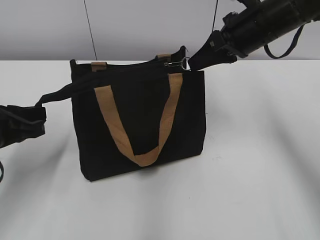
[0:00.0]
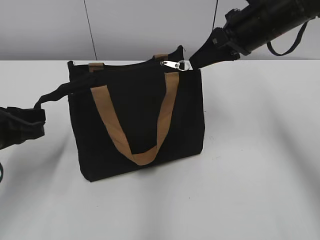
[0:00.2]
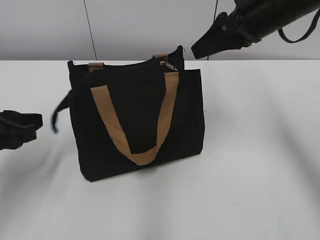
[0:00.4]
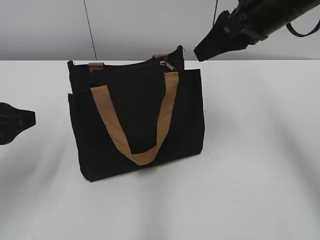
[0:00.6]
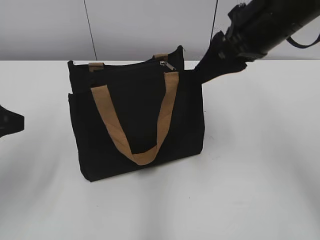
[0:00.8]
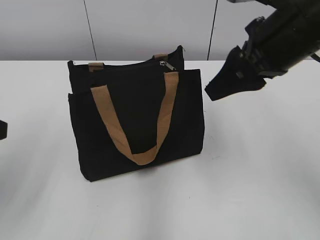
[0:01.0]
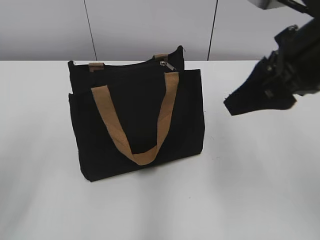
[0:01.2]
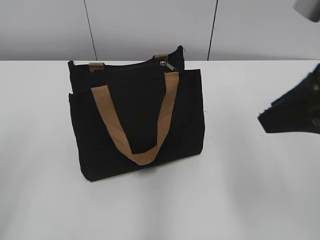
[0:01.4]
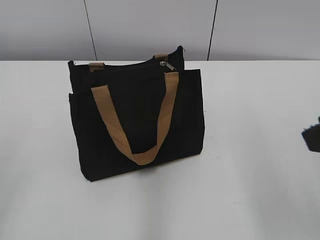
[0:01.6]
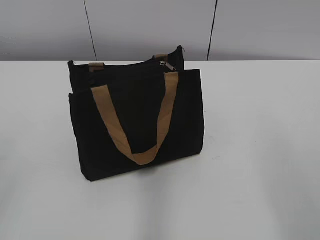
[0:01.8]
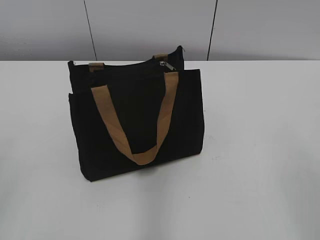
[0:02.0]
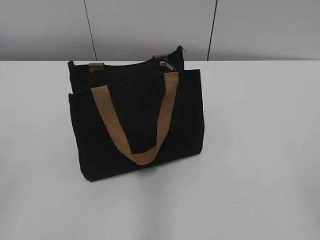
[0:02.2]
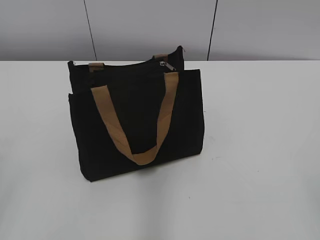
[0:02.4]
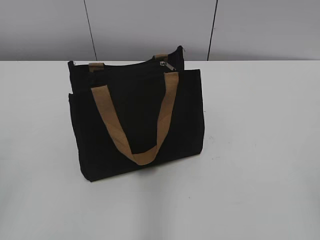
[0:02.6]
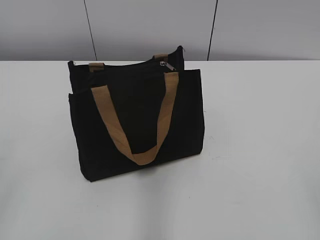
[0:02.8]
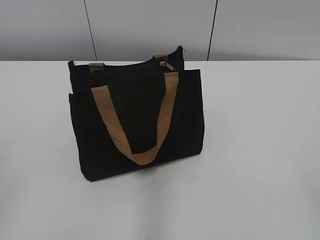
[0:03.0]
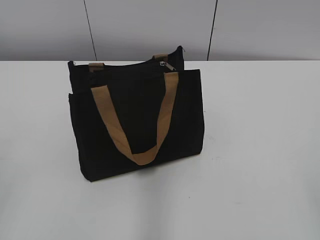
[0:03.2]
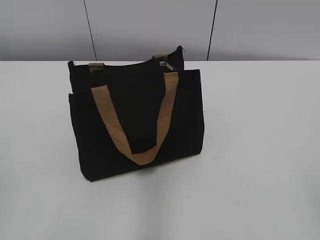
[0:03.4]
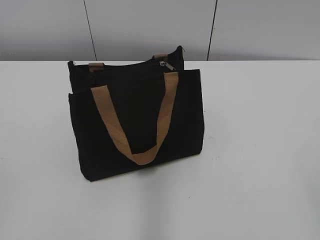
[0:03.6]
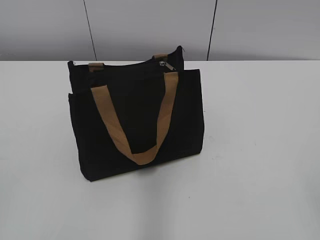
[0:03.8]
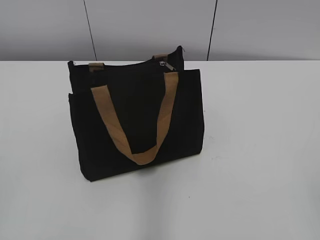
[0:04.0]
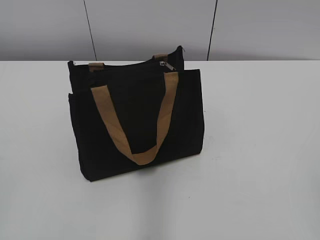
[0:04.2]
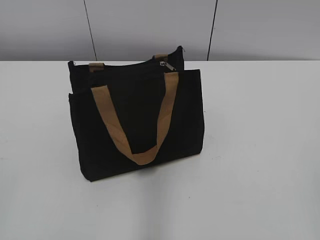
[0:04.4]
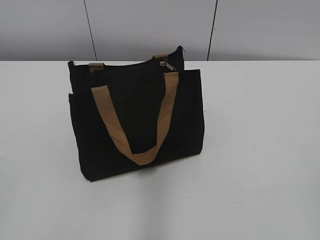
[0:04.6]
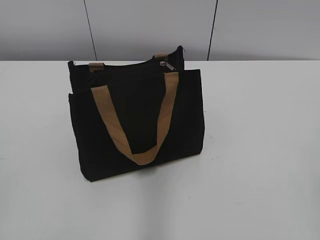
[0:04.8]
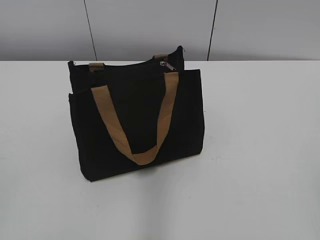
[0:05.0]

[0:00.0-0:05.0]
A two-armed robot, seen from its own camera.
Step, 0:00.2 to 0:00.6: Grab the zipper with your left hand.
0:00.0 to 0:01.6: The right gripper is displaced backward by roughly 25 cm, and opens its fingers, while the left gripper heads backward and upward, covering approximately 20 cm, and opens.
0:01.6 to 0:03.4: The right gripper travels backward and to the right by some 15 cm.

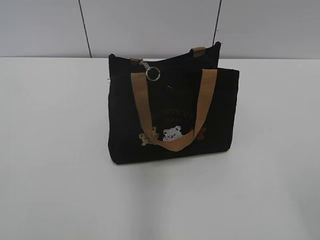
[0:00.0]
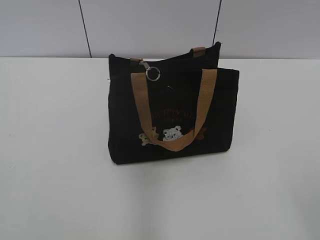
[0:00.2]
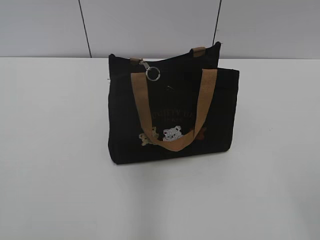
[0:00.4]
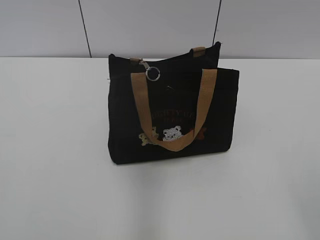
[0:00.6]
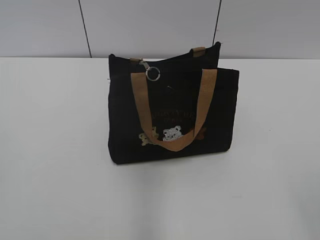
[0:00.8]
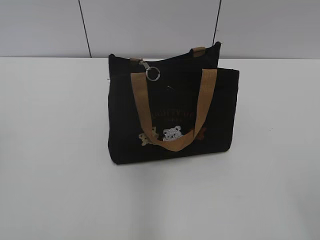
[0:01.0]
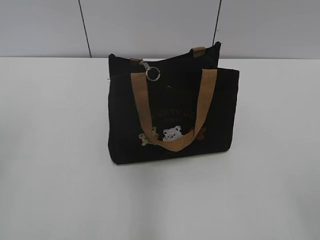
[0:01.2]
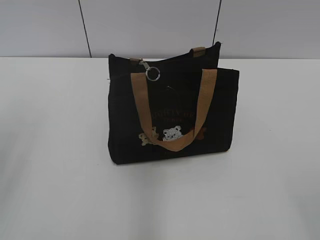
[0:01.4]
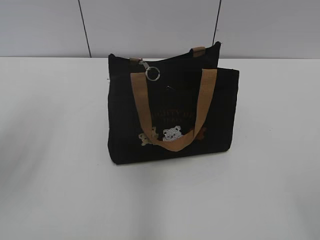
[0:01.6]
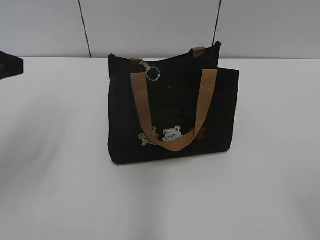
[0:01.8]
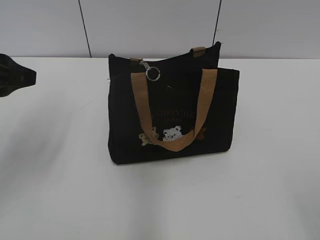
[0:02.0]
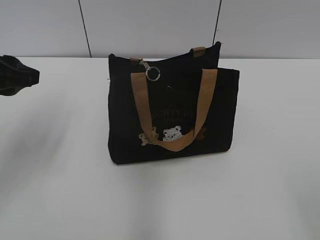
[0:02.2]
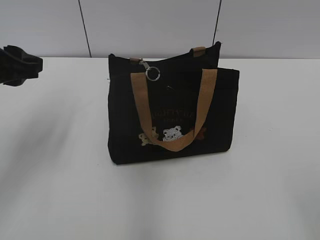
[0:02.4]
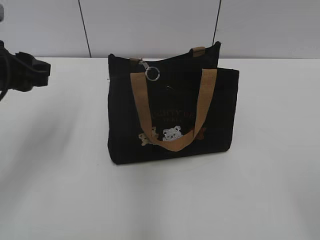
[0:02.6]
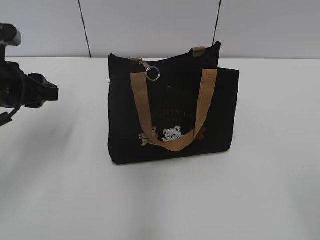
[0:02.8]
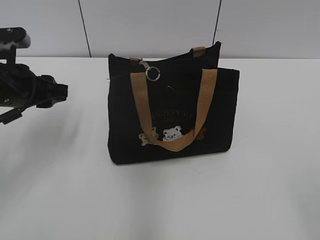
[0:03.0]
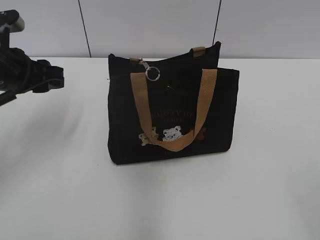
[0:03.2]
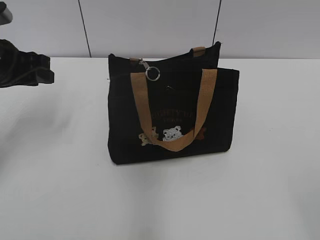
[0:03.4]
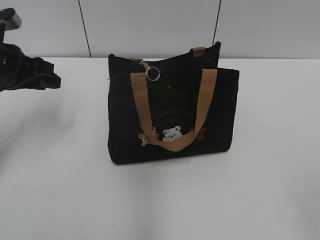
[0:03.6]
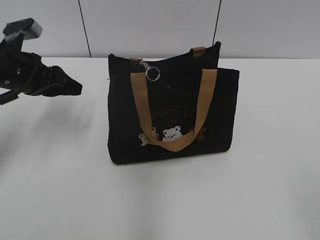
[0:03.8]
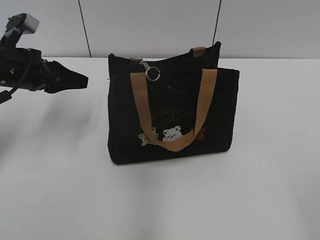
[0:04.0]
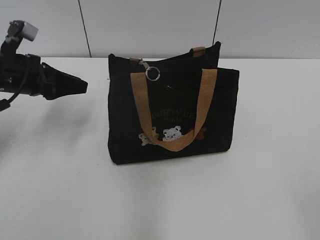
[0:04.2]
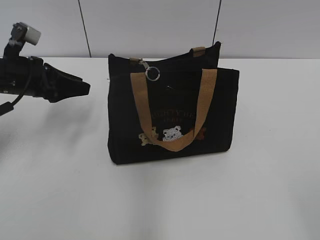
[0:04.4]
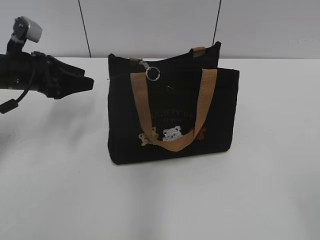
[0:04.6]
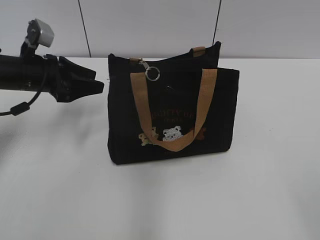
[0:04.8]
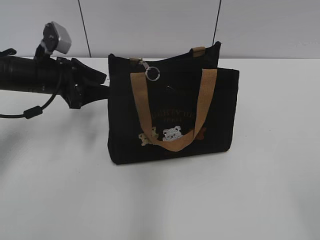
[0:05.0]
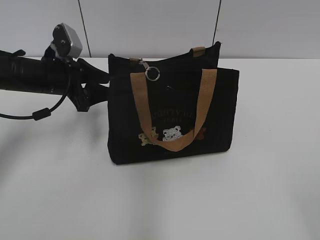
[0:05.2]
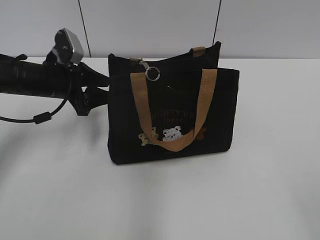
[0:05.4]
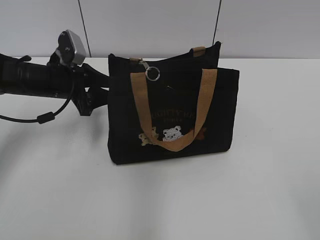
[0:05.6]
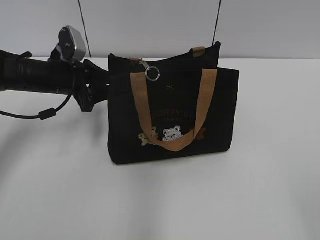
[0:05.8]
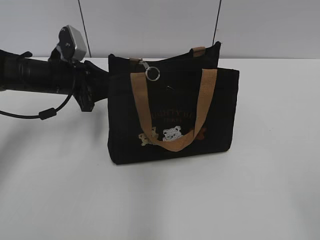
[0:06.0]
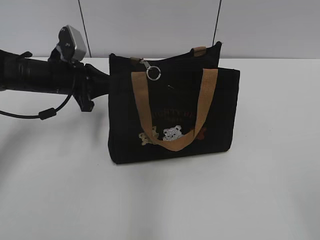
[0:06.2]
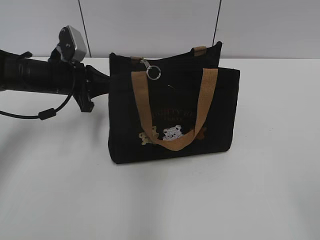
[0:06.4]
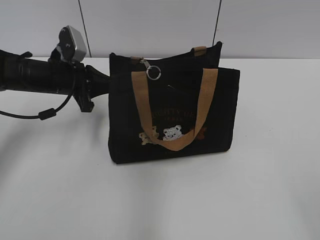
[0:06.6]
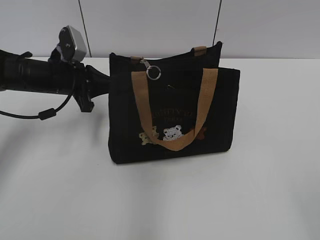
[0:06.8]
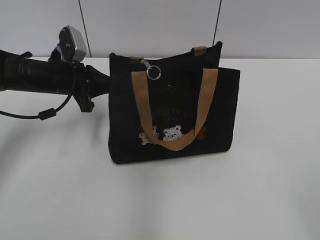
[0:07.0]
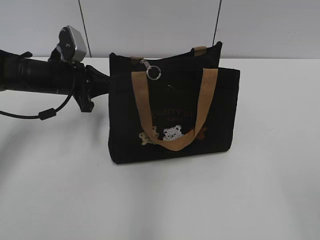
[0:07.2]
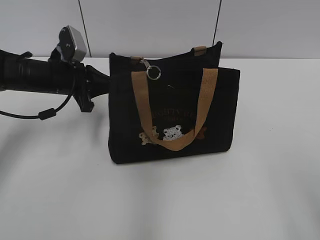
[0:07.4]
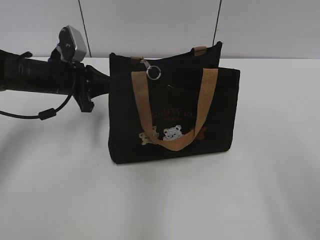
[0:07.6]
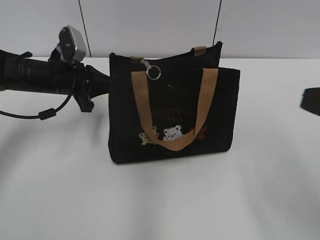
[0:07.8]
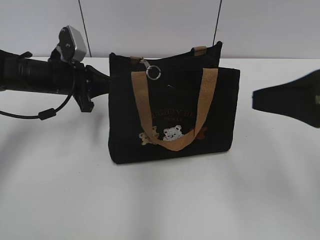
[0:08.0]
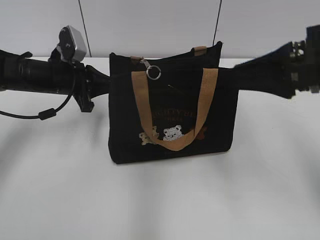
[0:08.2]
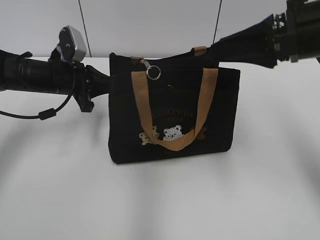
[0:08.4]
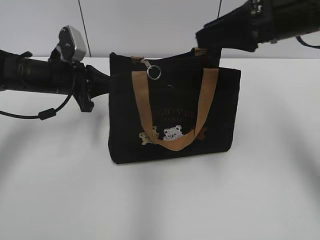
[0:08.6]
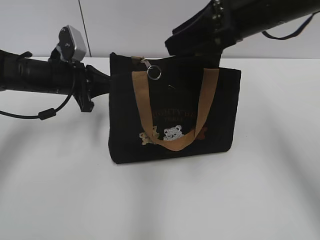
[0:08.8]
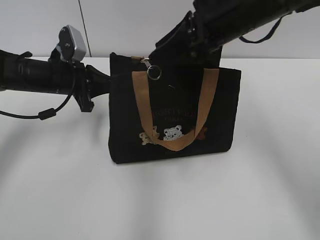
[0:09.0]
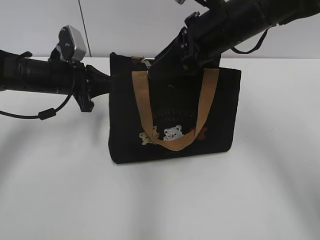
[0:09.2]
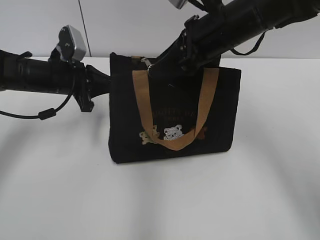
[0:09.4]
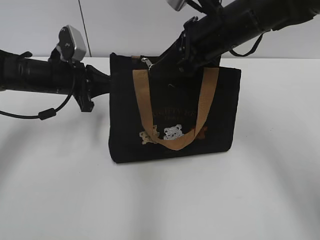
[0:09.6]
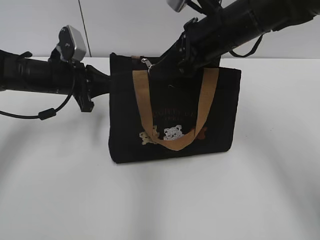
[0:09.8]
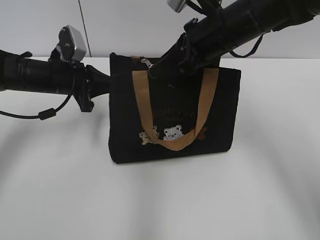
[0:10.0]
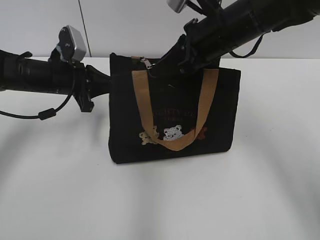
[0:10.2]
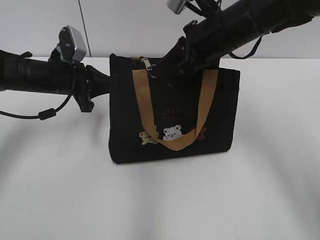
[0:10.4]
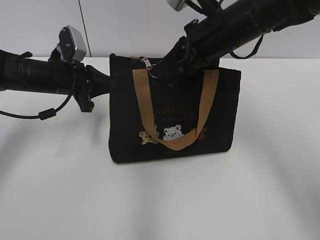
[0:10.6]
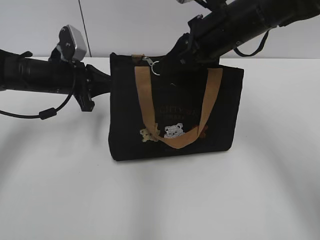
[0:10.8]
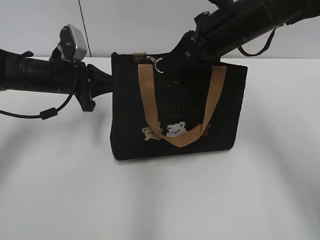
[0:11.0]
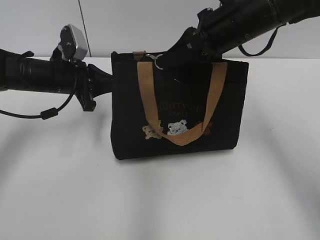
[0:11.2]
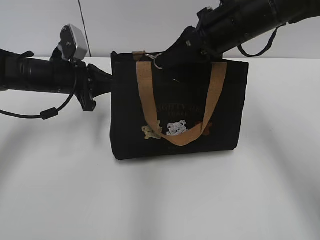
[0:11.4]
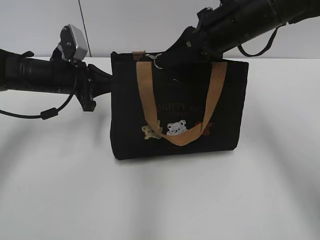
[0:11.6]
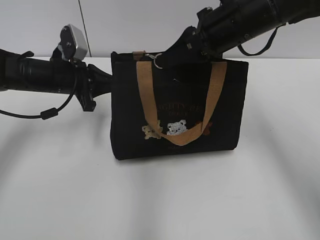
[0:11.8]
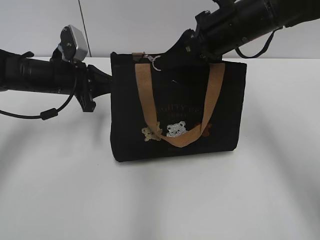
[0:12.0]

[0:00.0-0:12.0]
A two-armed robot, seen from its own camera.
0:01.6 to 0:03.0: The left gripper shifts about 15 cm downward and forward.
0:03.0 to 0:04.4: The left gripper heads forward, covering roughly 5 cm.
0:04.4 to 0:06.0: The left gripper moves to the right, roughly 5 cm.
0:06.0 to 0:07.6: The right gripper heads forward, covering roughly 5 cm. Meanwhile the left gripper closes up.
0:07.6 to 0:09.0: The right gripper shifts approximately 30 cm forward and to the left.
0:09.0 to 0:10.4: The right gripper shifts about 5 cm downward, and closes its fingers.
0:10.4 to 0:12.0: The grippers move only a little.

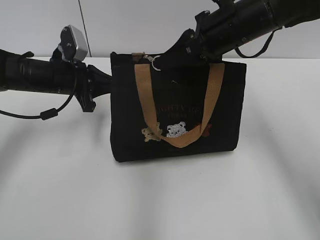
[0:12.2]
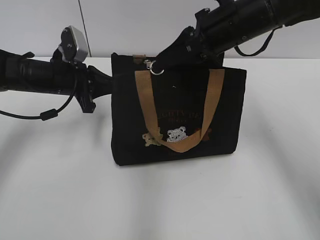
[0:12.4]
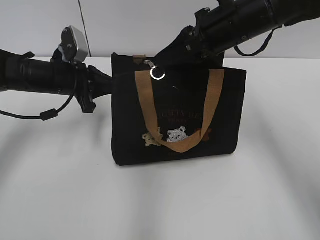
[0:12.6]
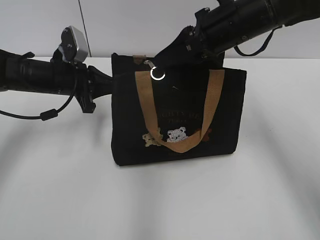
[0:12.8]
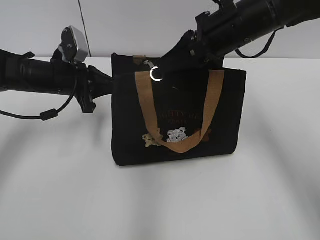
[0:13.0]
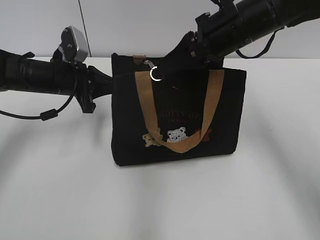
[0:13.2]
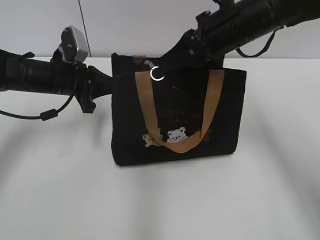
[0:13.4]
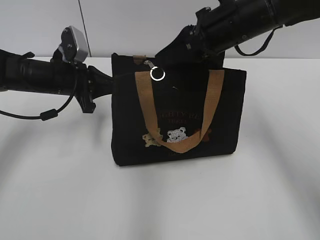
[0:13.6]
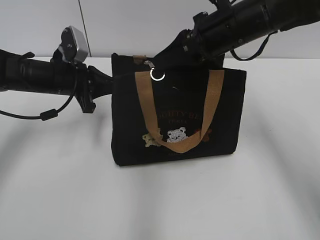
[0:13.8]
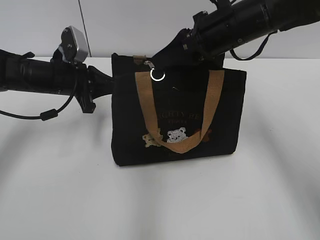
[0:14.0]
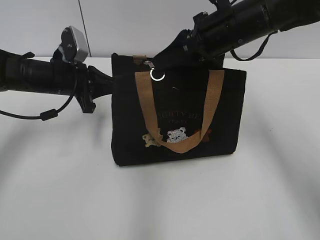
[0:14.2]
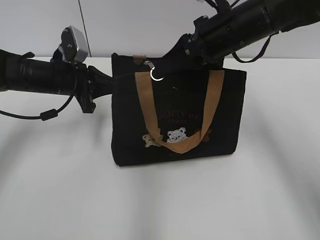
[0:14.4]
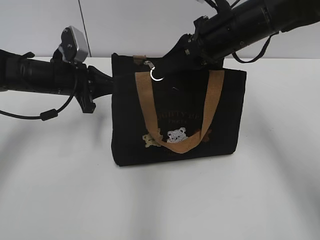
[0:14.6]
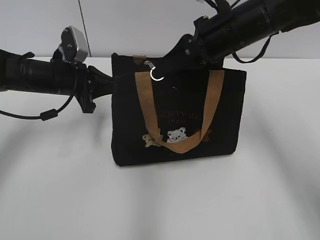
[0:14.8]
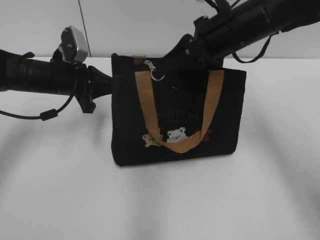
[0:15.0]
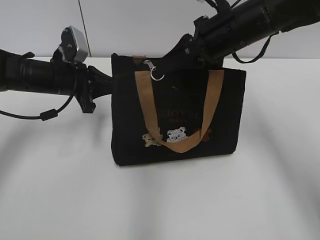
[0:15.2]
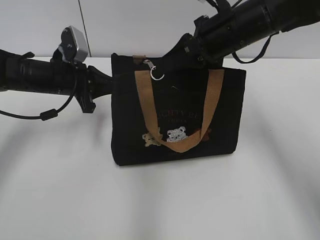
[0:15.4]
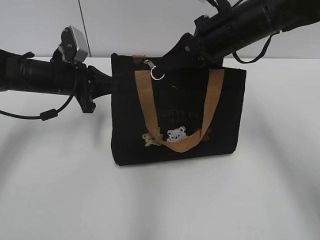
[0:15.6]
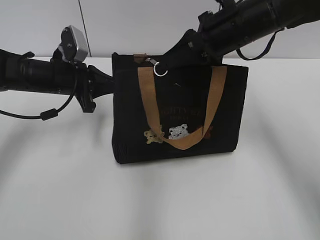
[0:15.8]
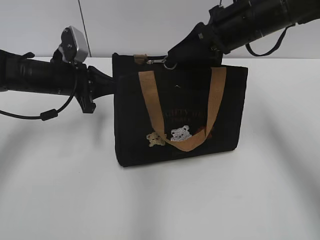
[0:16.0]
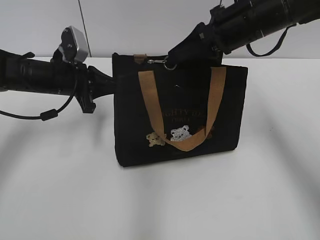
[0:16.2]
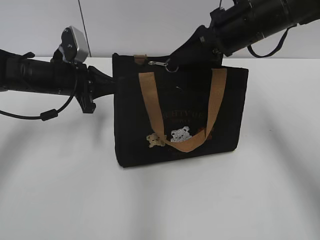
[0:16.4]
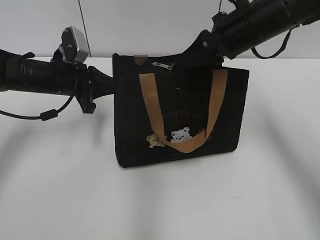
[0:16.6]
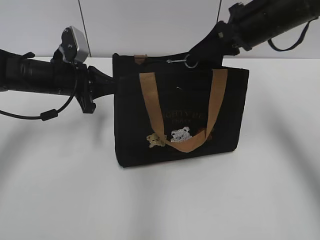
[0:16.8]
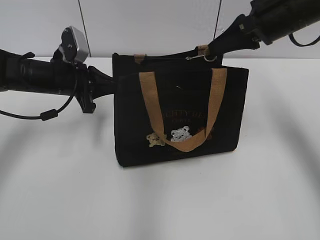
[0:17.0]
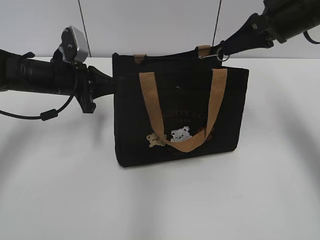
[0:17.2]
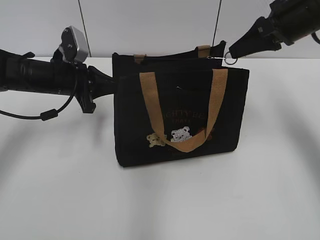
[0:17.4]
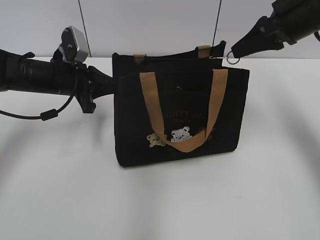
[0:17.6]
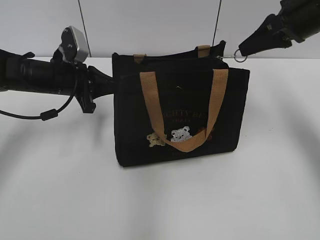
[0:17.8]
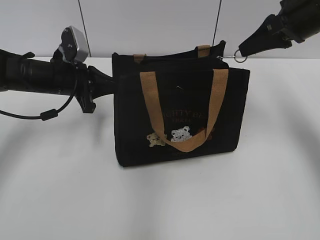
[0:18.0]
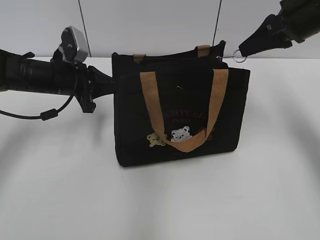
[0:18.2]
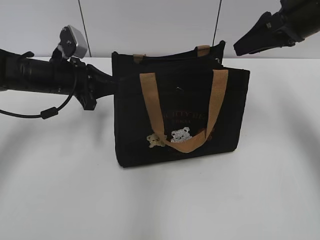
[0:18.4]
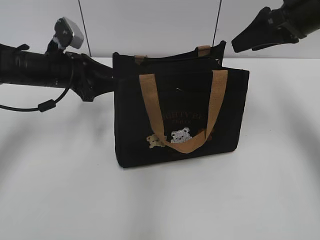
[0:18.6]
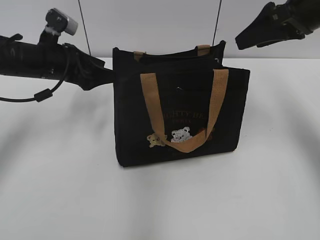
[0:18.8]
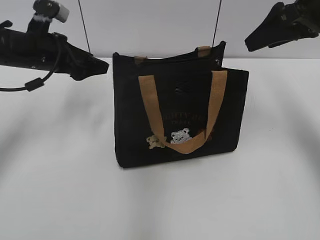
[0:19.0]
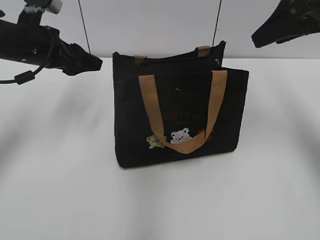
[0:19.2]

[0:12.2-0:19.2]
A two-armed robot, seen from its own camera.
Step, 0:12.2 to 0:18.2: Pull open the zipper with your right hand.
Step, 0:18.4 to 0:18.8: Hold the bag with your left hand.
0:12.2 to 0:15.0: Both grippers stay put.
0:15.0 to 0:16.4: The grippers move only a little.
0:16.4 to 0:17.8: The right gripper travels to the right by about 10 cm.
0:17.8 to 0:19.2: The left gripper moves upward, approximately 5 cm, and opens up. The right gripper opens its fingers.
